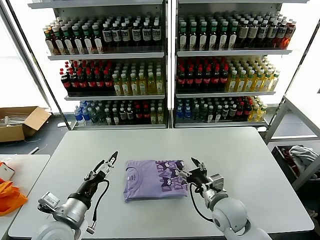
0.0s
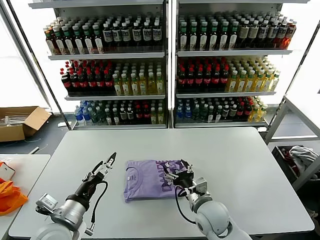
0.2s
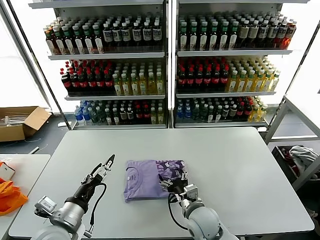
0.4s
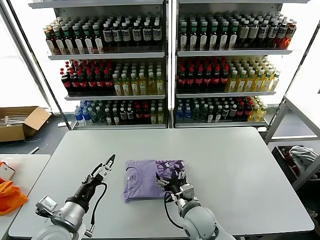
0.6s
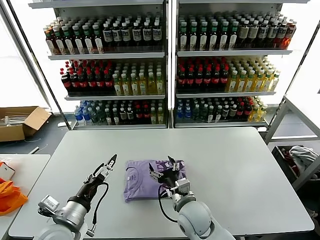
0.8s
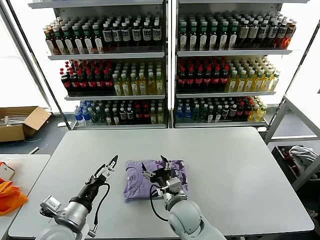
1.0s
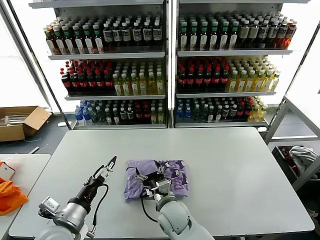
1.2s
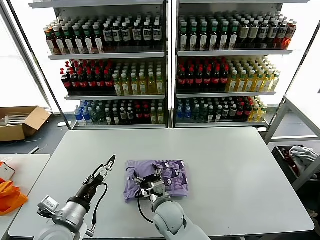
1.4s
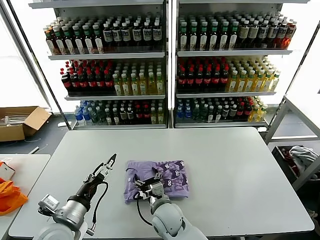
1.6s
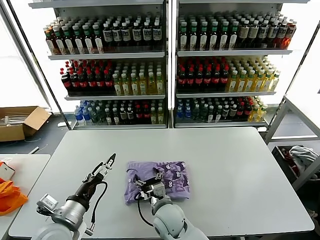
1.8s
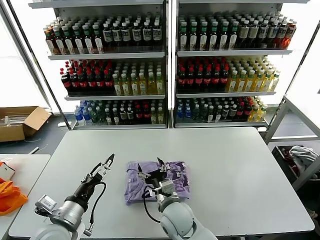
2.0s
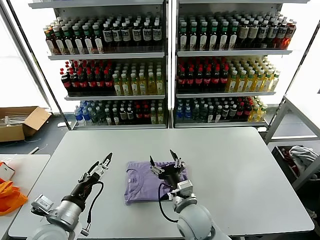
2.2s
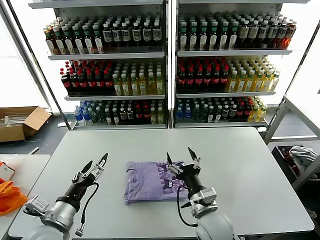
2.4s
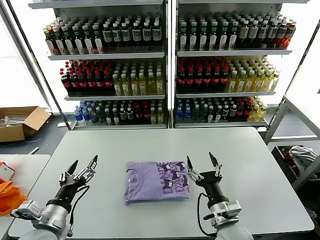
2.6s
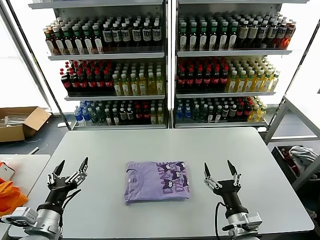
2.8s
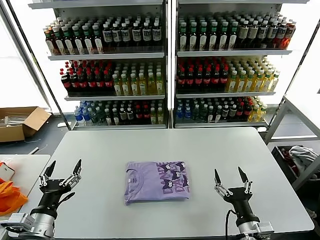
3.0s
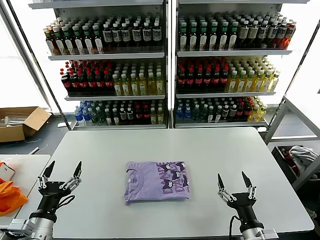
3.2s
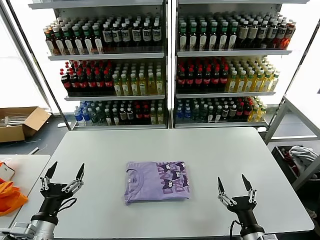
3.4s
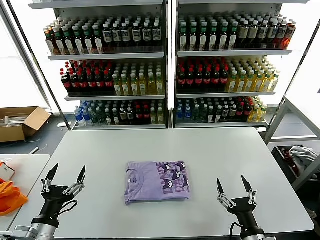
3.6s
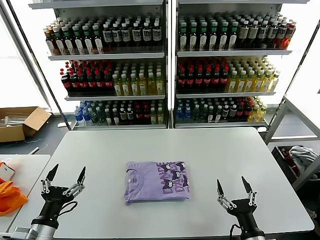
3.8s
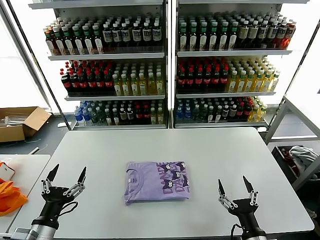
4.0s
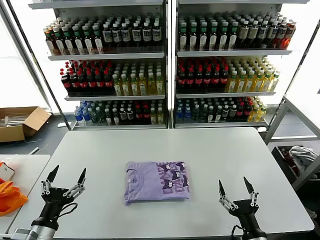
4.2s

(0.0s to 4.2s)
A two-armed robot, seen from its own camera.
Task of the whole recording: fold and organize the clothes.
0.0s - 1.4s: The right gripper shifts roughly 20 cm to the left.
1.4s - 2.8s: The right gripper travels to the right and backward by roughly 25 cm.
2.8s - 4.2s: The right gripper travels backward and to the right by approximately 10 cm.

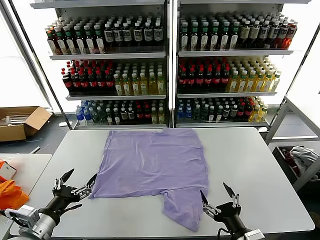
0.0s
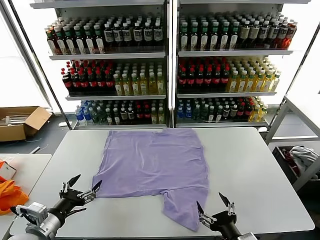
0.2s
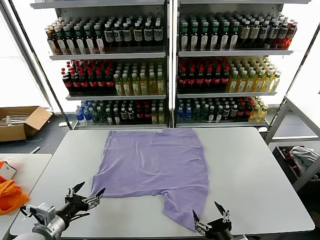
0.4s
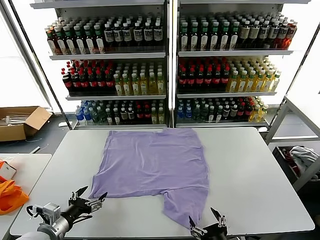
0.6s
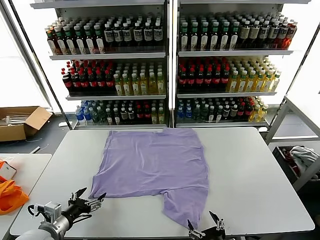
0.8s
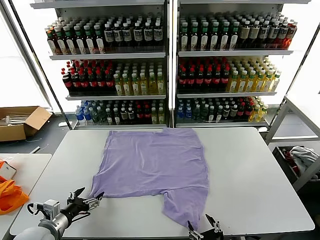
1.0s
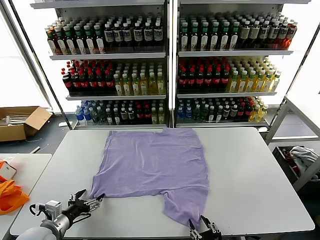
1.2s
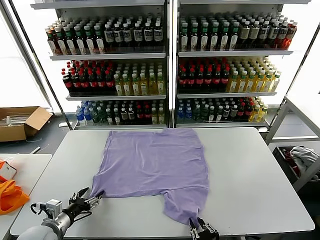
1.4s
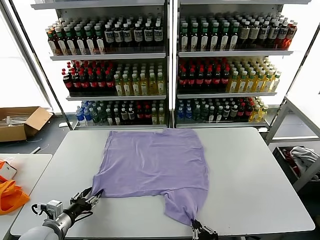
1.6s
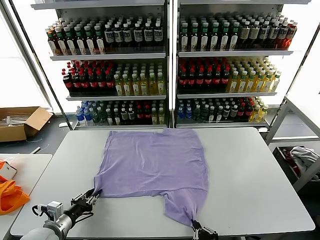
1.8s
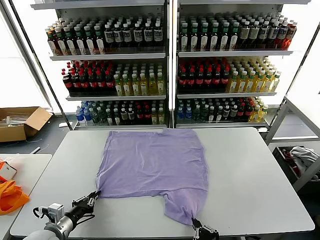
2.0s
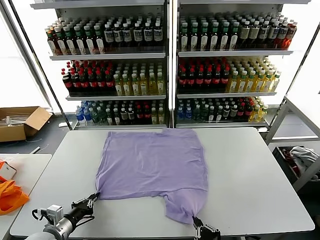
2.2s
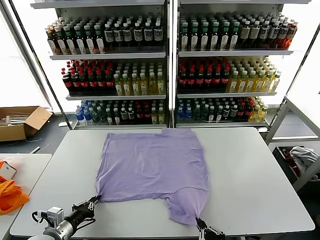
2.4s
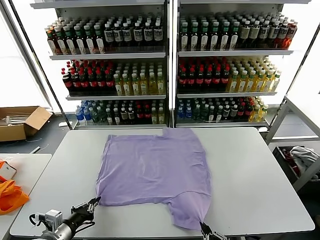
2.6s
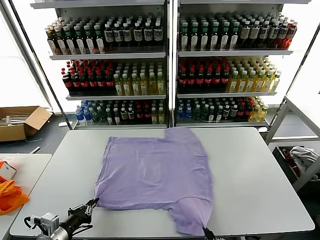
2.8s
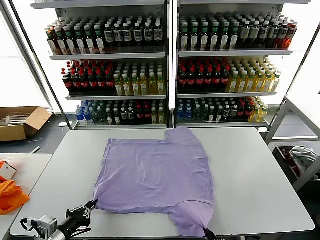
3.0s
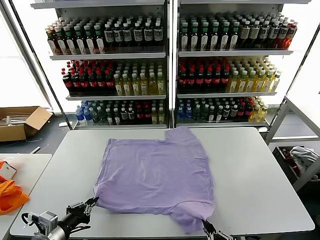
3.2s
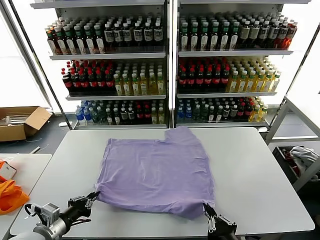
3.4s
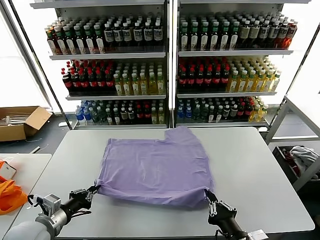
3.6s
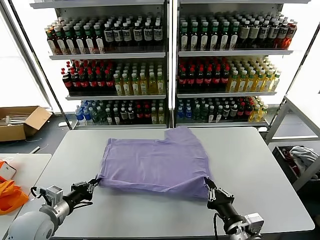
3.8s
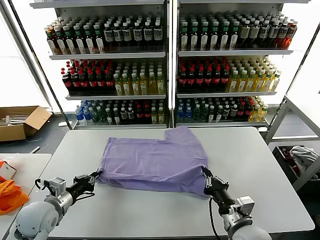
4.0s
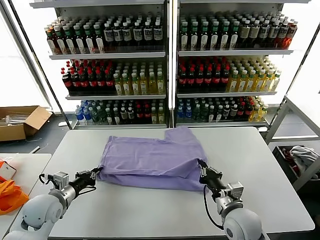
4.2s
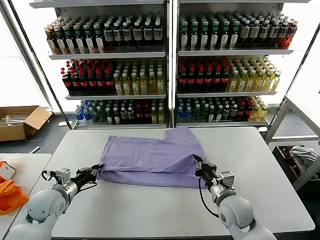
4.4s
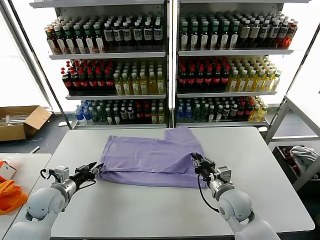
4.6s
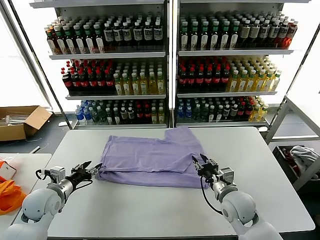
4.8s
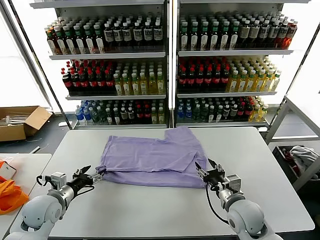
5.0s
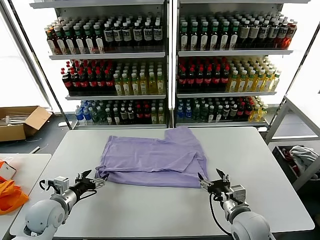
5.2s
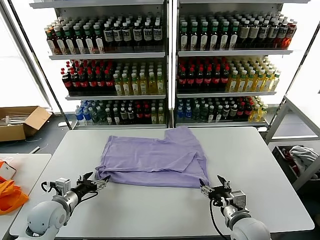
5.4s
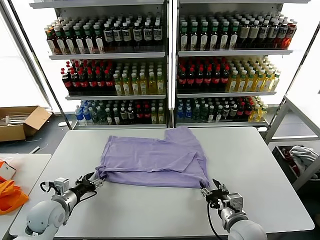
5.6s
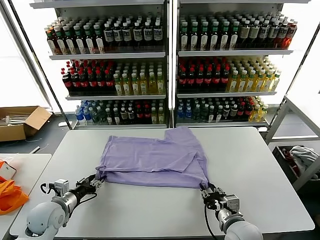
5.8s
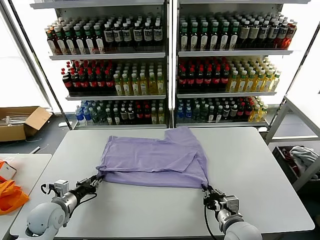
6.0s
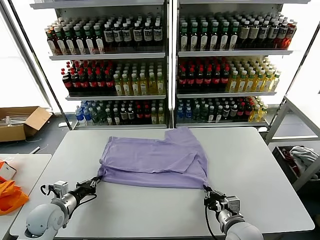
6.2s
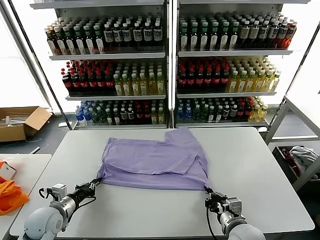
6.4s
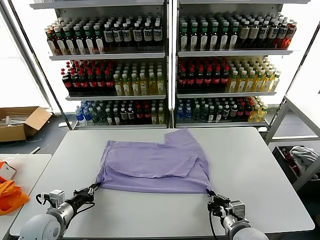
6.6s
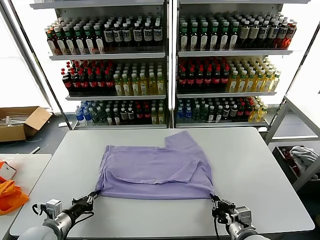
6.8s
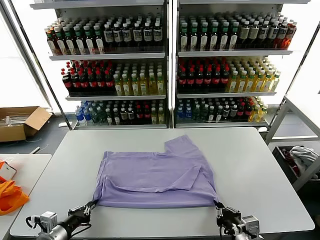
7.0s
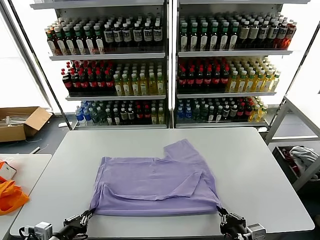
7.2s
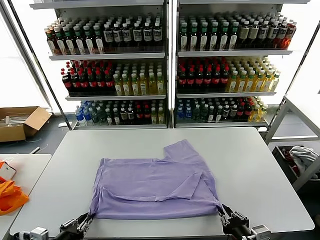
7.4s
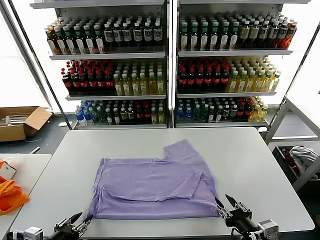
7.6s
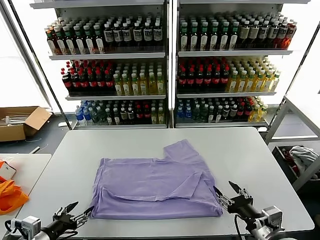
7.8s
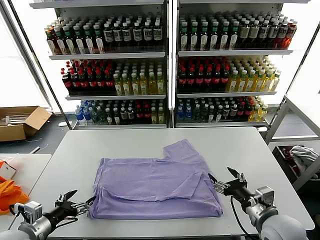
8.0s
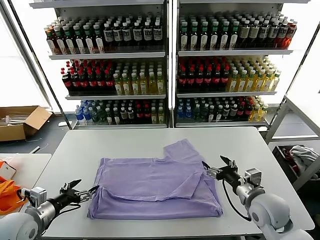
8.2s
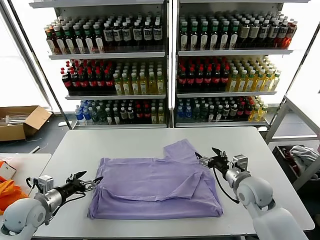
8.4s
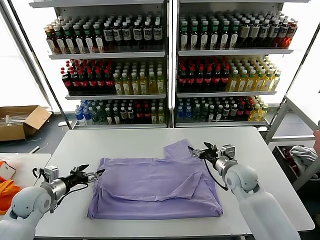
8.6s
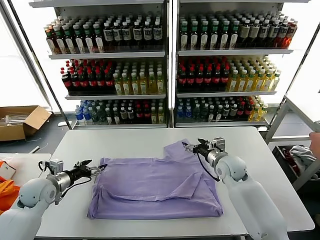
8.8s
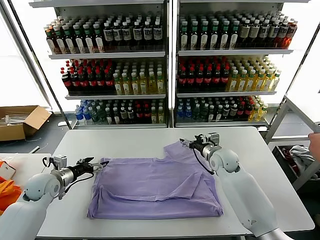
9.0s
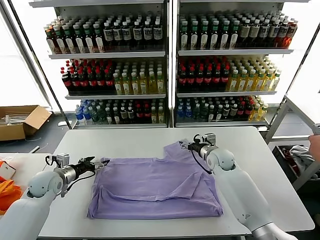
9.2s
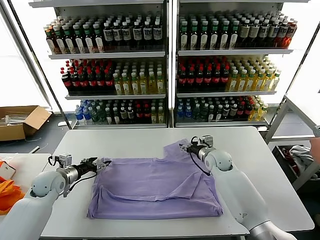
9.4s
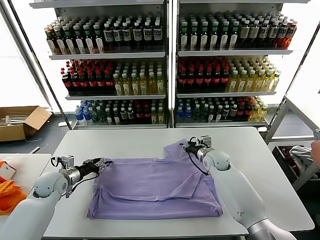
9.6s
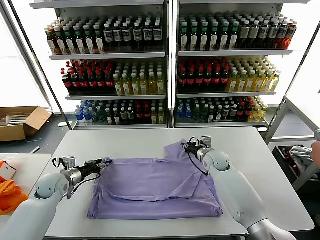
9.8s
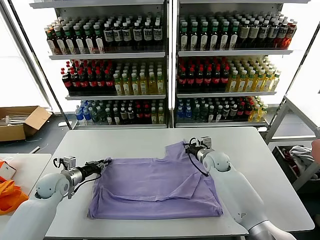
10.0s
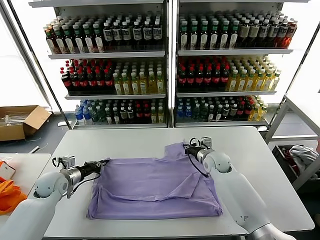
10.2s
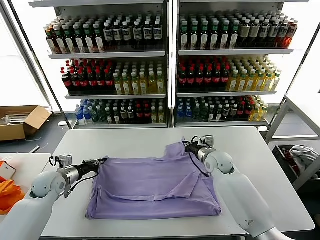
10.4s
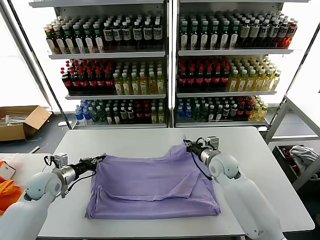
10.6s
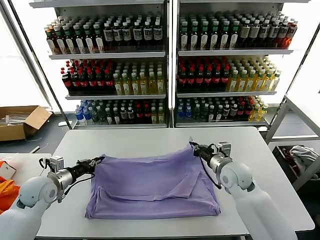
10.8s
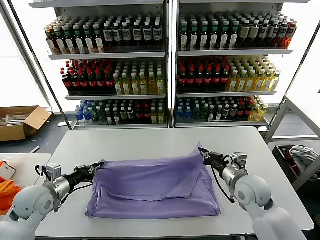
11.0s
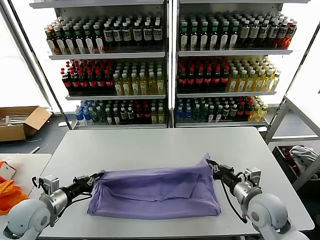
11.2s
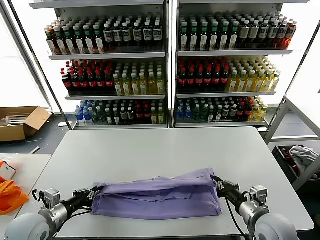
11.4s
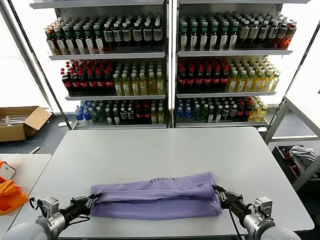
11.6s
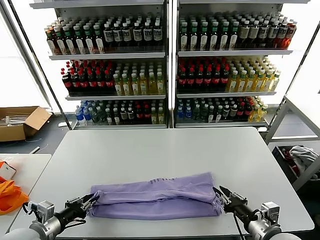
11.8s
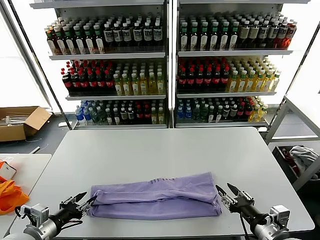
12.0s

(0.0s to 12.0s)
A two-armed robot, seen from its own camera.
Task of the whole recording: fold and organize the clothes.
Step, 0.0s - 2.0s: use both grippers simultaneously to clamp the lower edge of the clothing fabric.
Step, 2.2s - 4.8s: use both grippers to drag the lower edge of the fabric forward and fold it over the upper edge.
Step, 5.0s - 7.8s: Drag the clothes downward with both gripper.
Step, 8.0s - 10.2s: use both grippers simultaneously to clamp the upper edge of the clothing fabric.
1.6s - 3.0s: The right gripper moves backward and upward, approximately 10 cm. The left gripper travels backward by approximately 5 cm, and closes its fingers.
3.0s - 4.4s: The left gripper is displaced forward by roughly 15 cm. The right gripper is displaced forward by some 25 cm.
4.4s - 6.0s: The right gripper goes approximately 10 cm backward, and opens, then closes once more, while the left gripper opens and closes again.
6.0s - 7.6s: The left gripper heads backward, covering some 15 cm. Meanwhile the right gripper travels backward, upward and to the right by some 15 cm, and opens its fingers.
7.6s - 9.0s: The two grippers go roughly 30 cm forward. The left gripper opens up, while the right gripper opens.
9.0s - 10.4s: The left gripper closes; the right gripper closes.
10.4s - 12.0s: The right gripper is displaced backward by approximately 30 cm, and opens up, while the left gripper is displaced backward by some 20 cm, and opens its fingers.

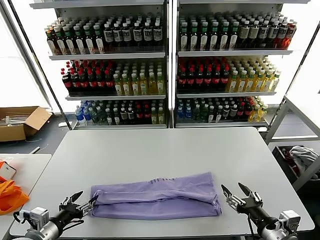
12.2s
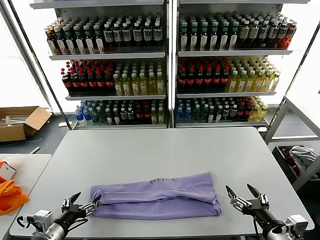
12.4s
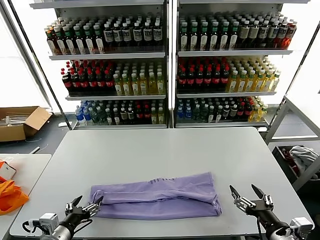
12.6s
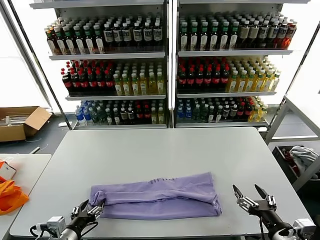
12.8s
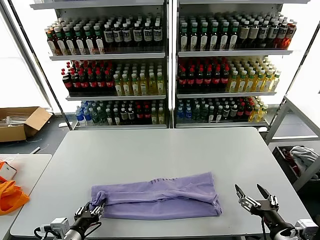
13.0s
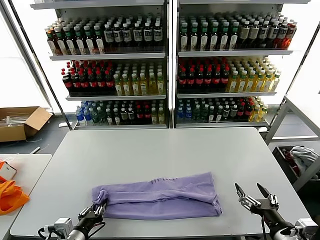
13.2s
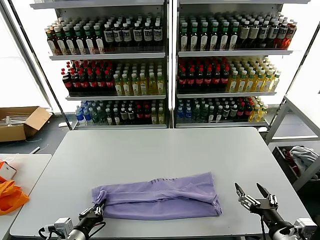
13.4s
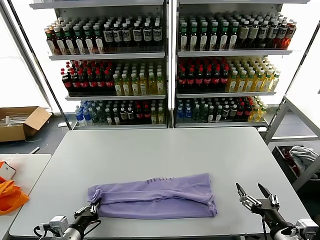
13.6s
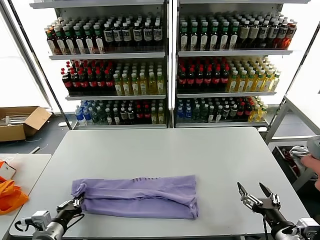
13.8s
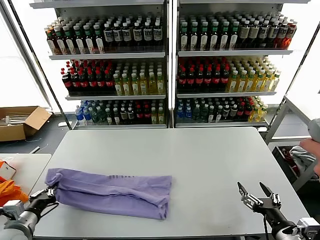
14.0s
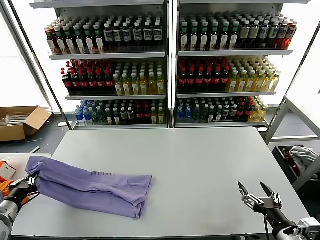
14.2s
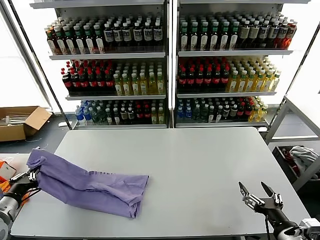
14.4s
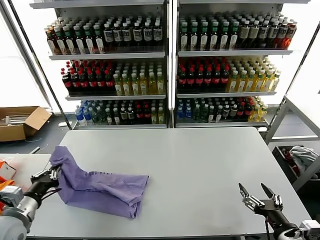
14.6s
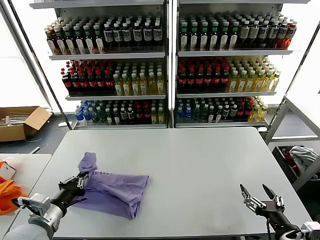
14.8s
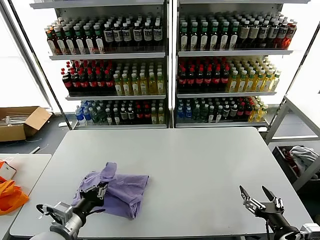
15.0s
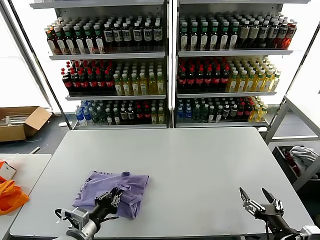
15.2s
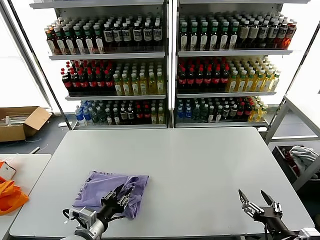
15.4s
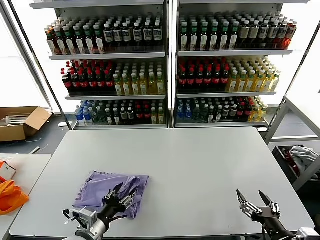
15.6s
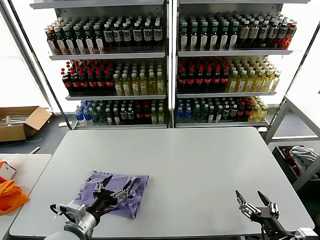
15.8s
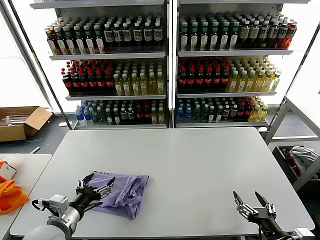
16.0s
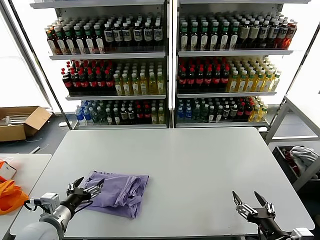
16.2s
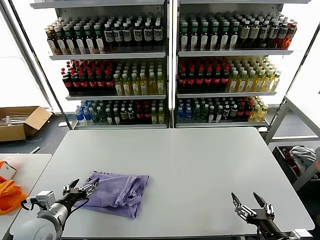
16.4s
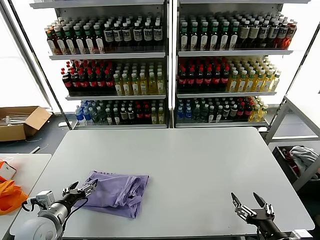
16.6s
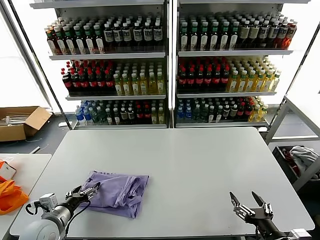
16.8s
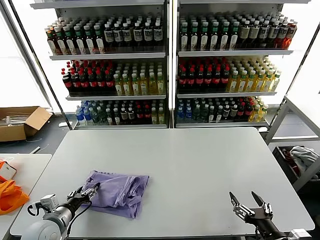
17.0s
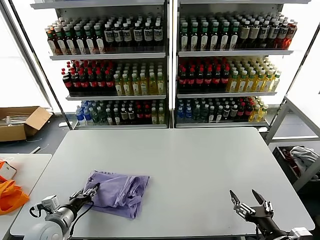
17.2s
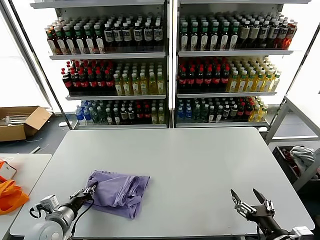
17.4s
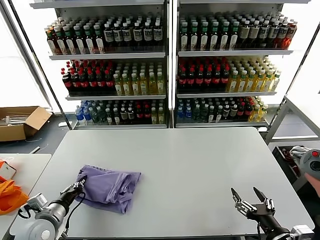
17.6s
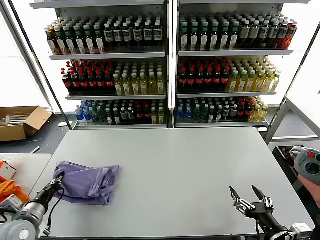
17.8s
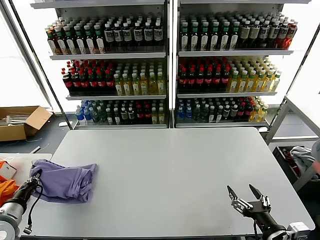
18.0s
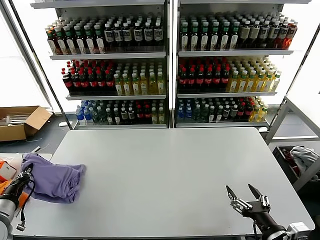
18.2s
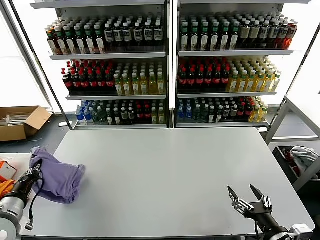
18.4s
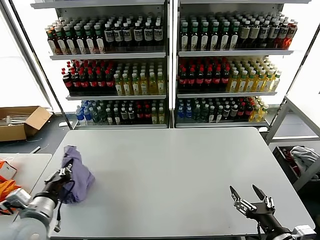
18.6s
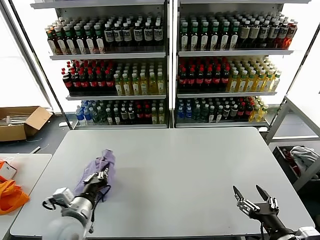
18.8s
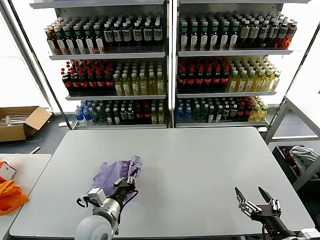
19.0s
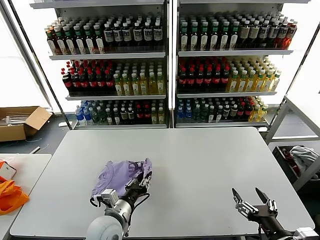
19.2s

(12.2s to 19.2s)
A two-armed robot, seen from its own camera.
Task of the whole recording: fold and organize the clothes.
Step, 12.2s - 13.4s: use the left gripper to clamp the left edge of the fabric.
Step, 13.6s - 15.6s: use the left gripper to drag the left edge of the fabric to the left and folds it over the right edge.
12.2s - 13.6s: The left gripper shifts approximately 10 cm to the right and downward, and closes its fingers.
13.6s - 15.0s: The left gripper is displaced upward by roughly 5 cm, and travels to the left and back again, some 20 cm each way.
15.0s - 16.4s: The left gripper moves some 10 cm to the right and comes back, and opens its fingers.
16.4s - 17.8s: The left gripper closes up.
17.8s - 19.2s: The left gripper moves to the right, roughly 20 cm.
